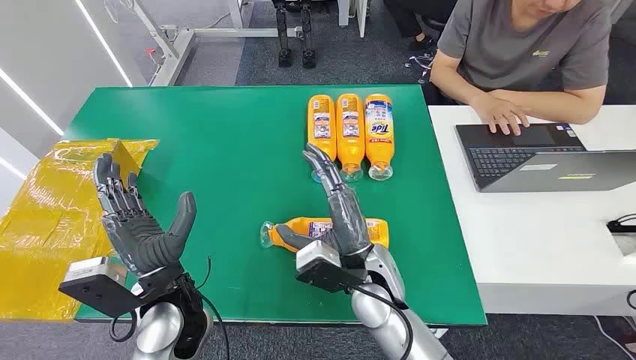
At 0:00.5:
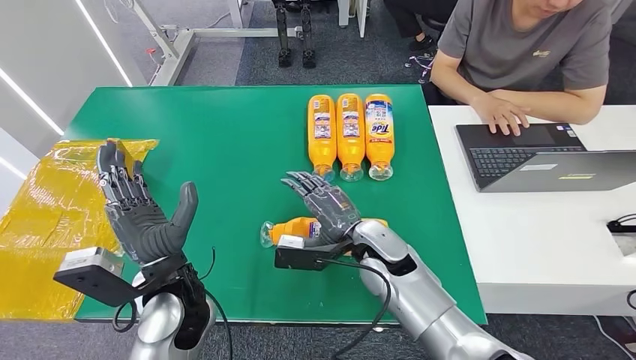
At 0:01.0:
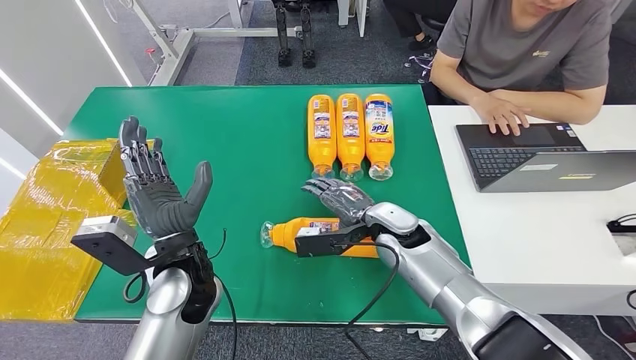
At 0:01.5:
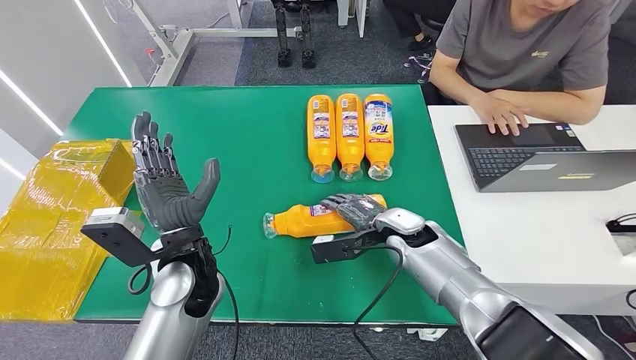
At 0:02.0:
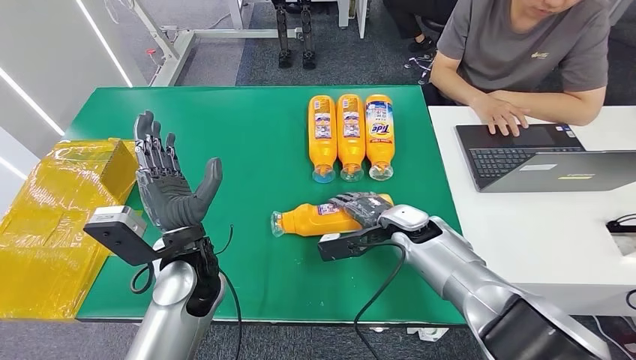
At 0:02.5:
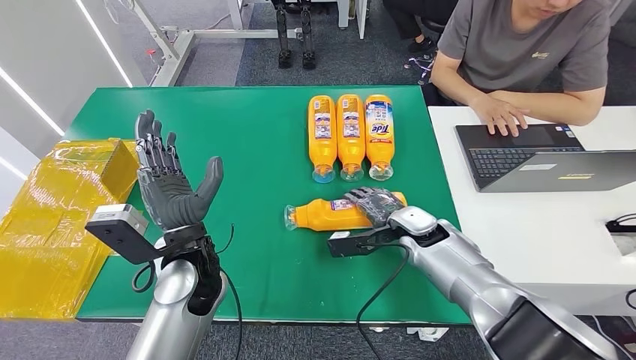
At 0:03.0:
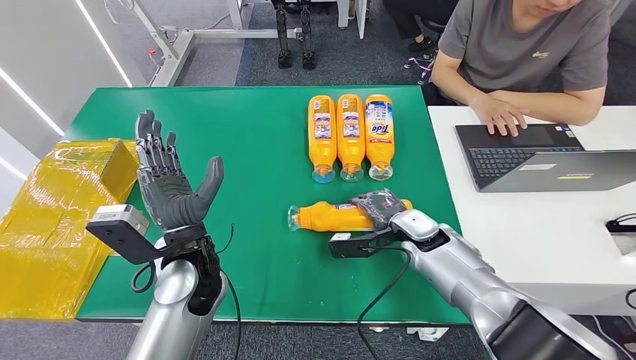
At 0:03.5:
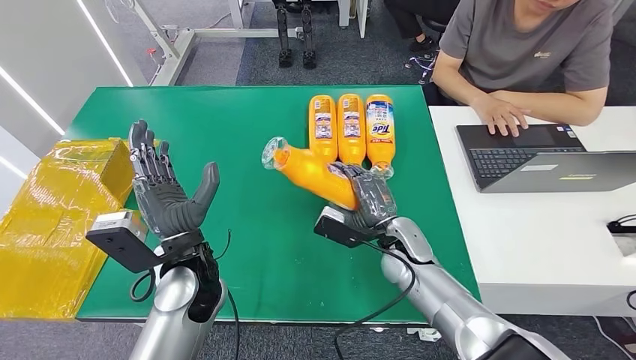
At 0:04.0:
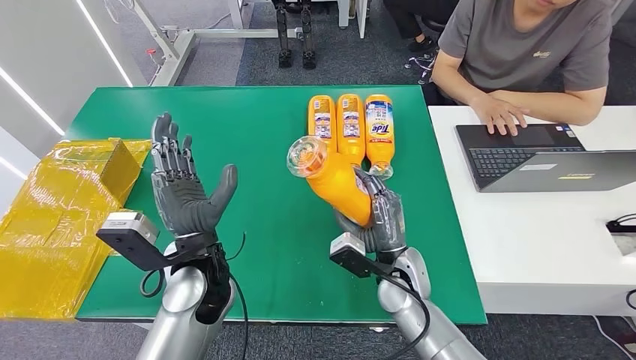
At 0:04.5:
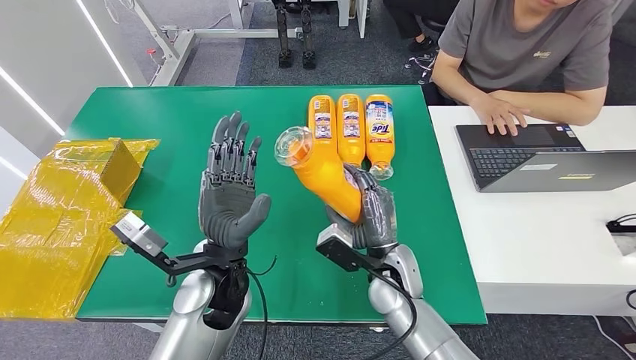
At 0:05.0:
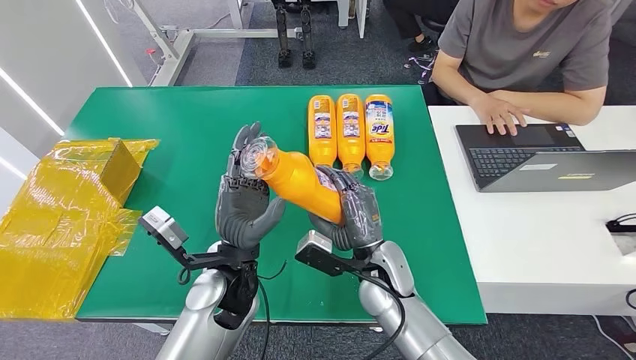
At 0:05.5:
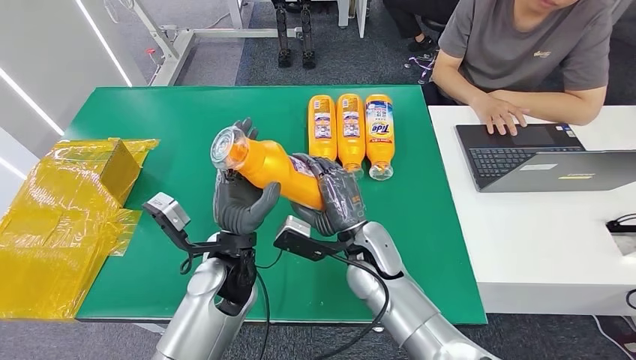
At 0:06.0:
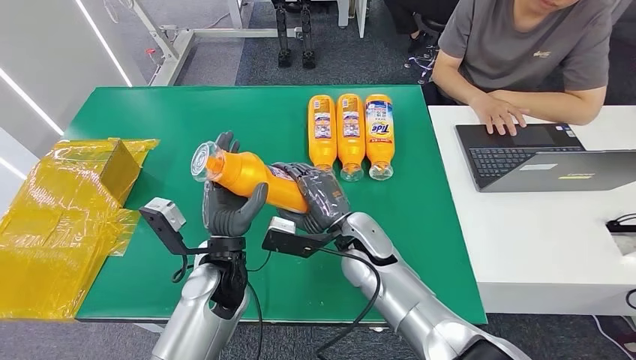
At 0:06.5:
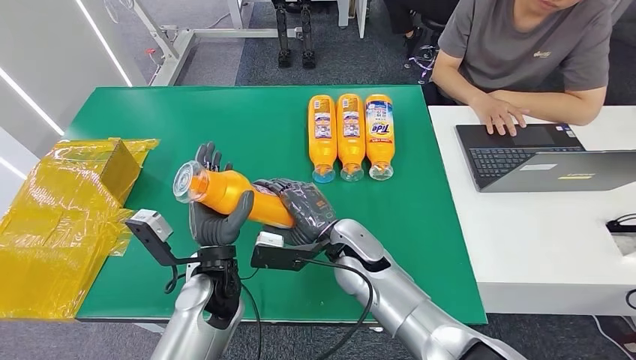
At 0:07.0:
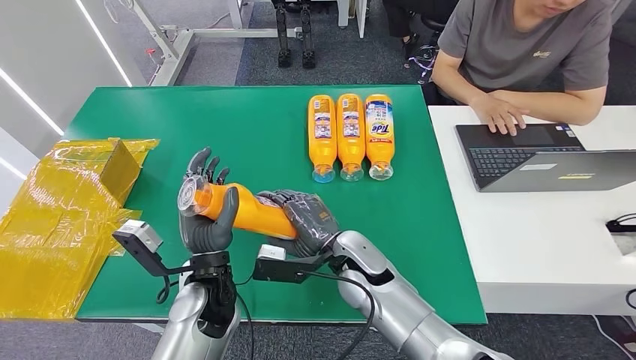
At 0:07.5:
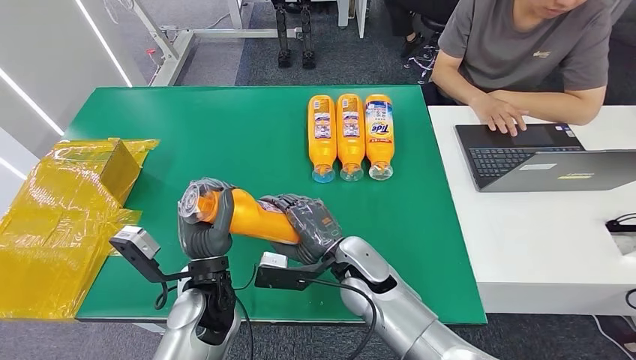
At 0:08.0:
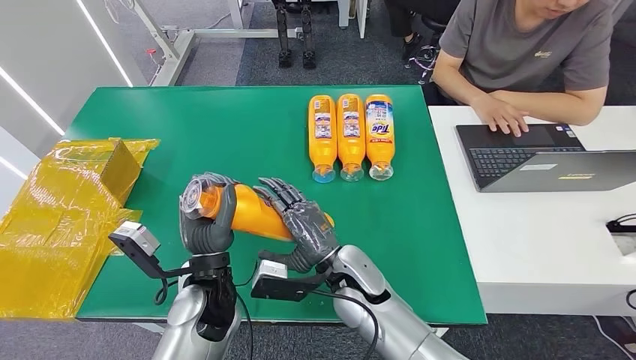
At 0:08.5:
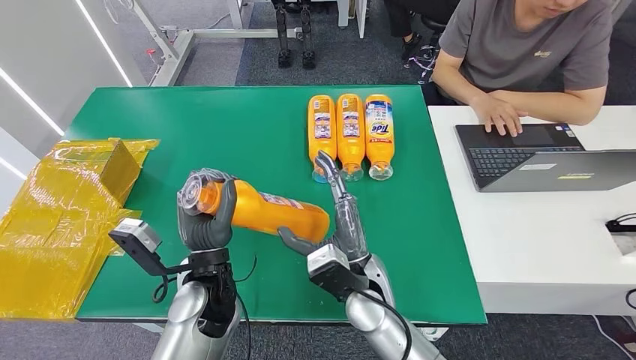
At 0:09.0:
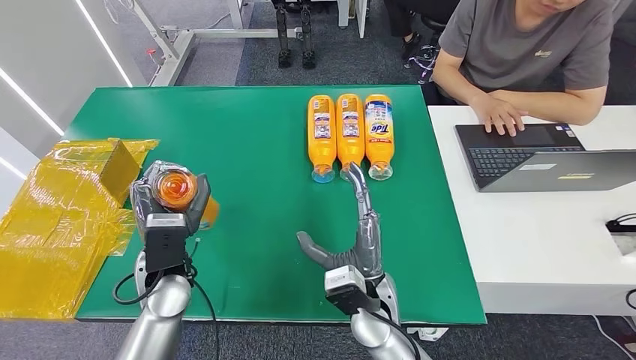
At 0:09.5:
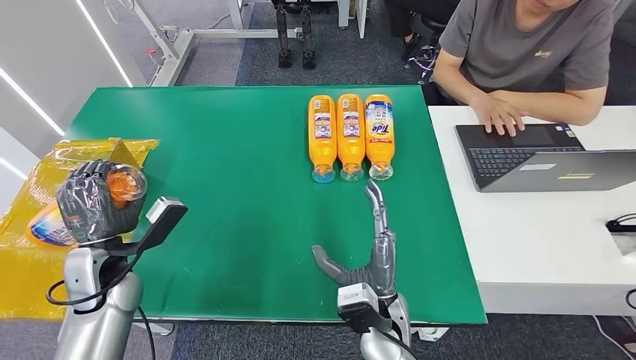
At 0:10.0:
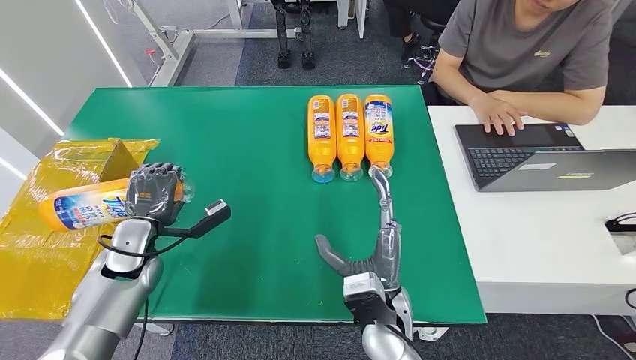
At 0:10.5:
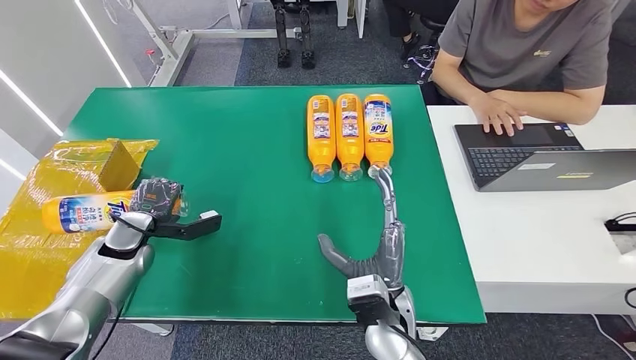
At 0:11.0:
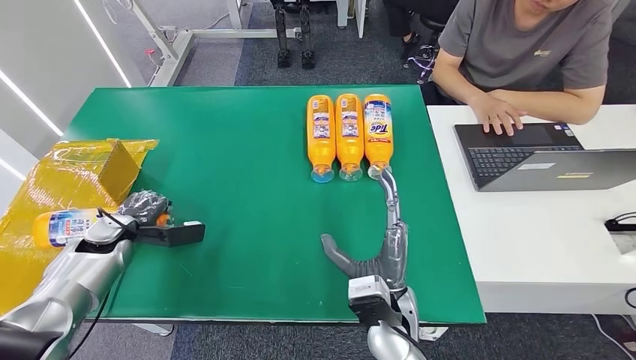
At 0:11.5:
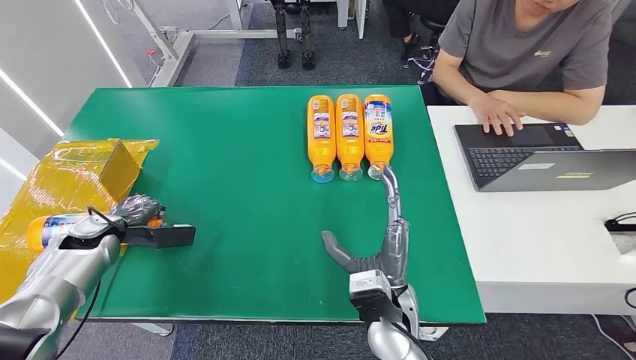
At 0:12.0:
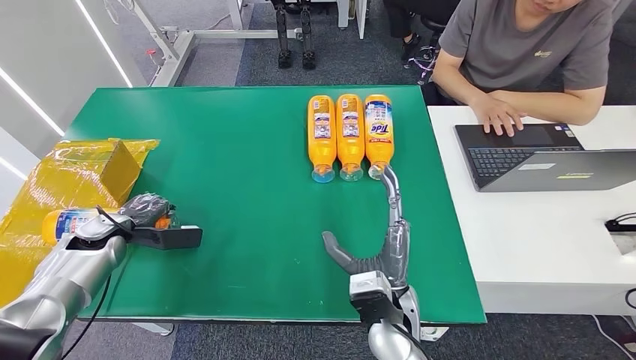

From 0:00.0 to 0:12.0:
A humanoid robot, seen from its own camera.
Step, from 0:00.0 to 0:03.5: Pick up the bottle from the table.
From 0:02.0 to 0:04.0: The right hand is displaced backward by about 10 cm.
From 0:04.0 to 0:06.0: The left hand ends up roughly 5 cm from where it was. The right hand shifts about 10 cm to the left and upward.
From 0:06.0 to 0:08.0: The right hand goes roughly 5 cm backward.
From 0:08.0 to 0:10.0: The right hand heads backward, covering about 5 cm. Meanwhile the left hand moves to the left and forward, about 20 cm.
From 0:10.0 to 0:12.0: The left hand travels to the left by approximately 10 cm.

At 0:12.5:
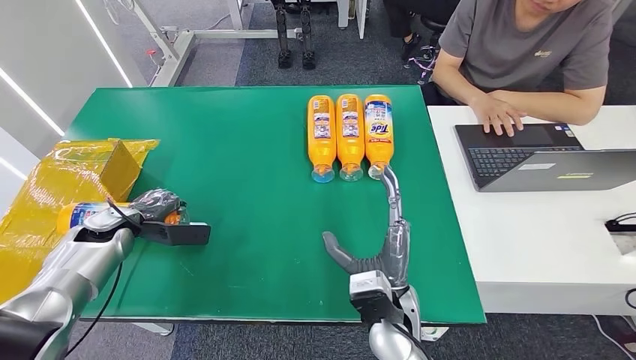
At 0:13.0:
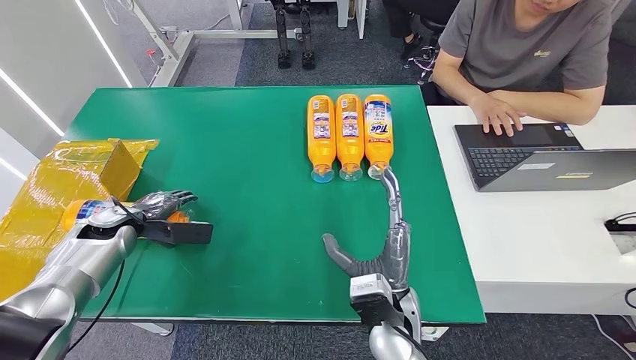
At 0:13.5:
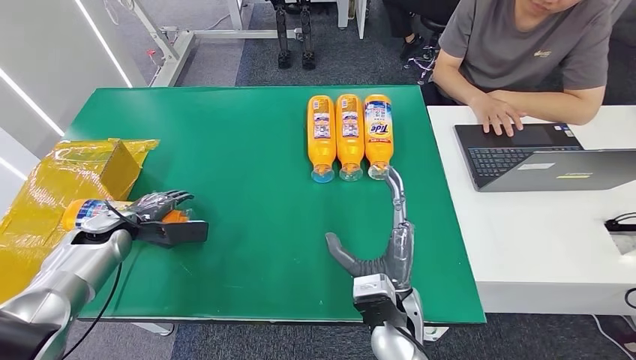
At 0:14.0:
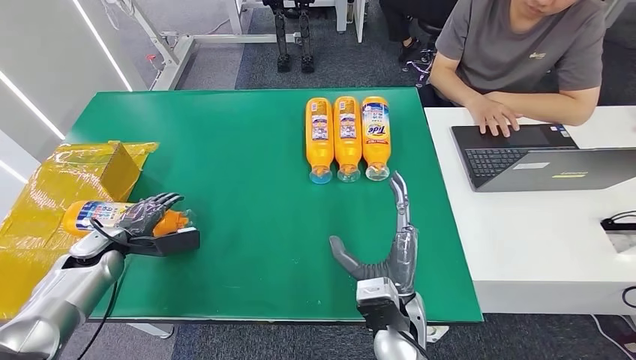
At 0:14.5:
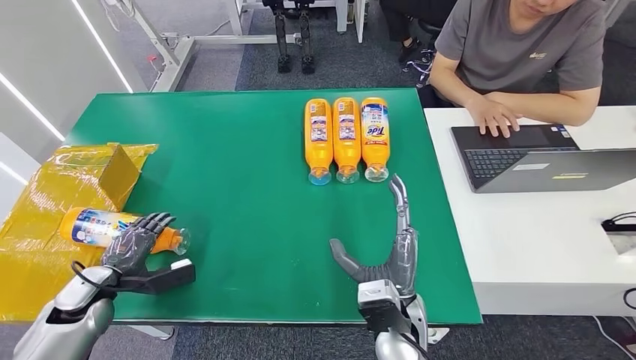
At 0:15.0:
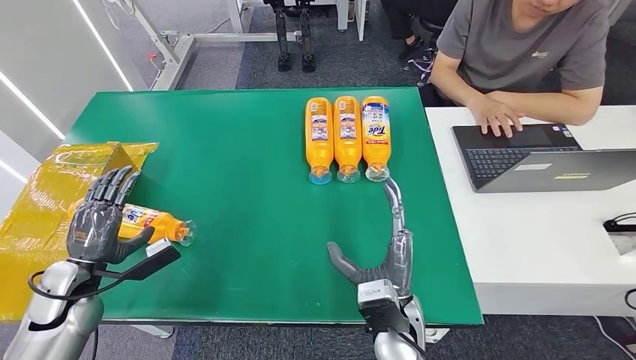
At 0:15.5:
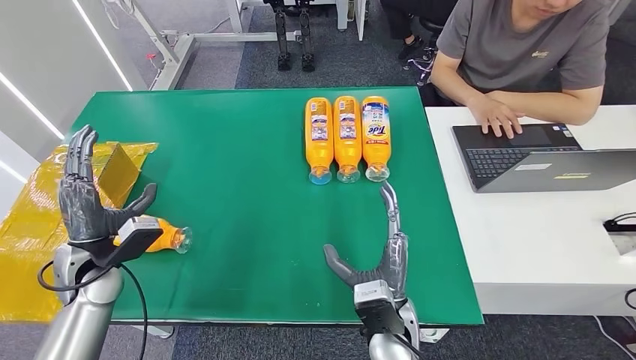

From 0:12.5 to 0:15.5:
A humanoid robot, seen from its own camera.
Step, from 0:12.5 to 0:15.5: Turn the bottle to the front side.
From 0:12.5 to 0:14.0: The left hand changes place by some 5 cm.
From 0:14.0 to 0:15.5: The left hand moves upward, to the right and backward, approximately 10 cm.
